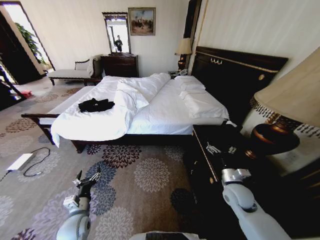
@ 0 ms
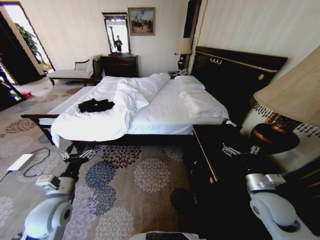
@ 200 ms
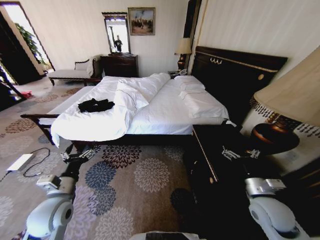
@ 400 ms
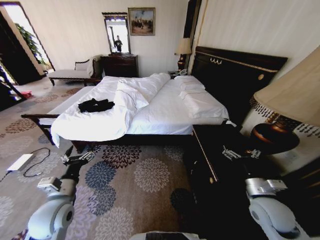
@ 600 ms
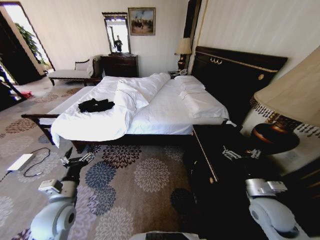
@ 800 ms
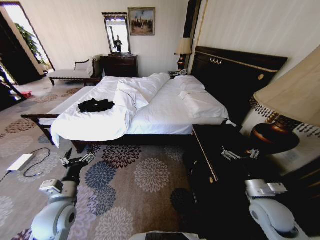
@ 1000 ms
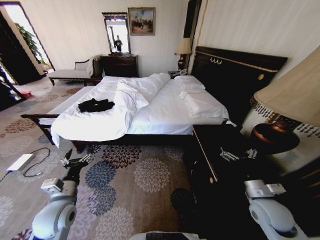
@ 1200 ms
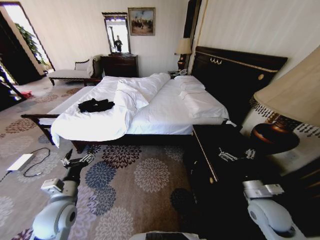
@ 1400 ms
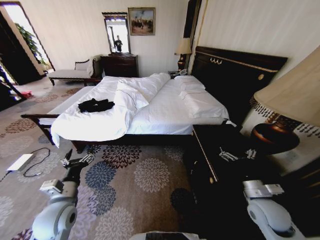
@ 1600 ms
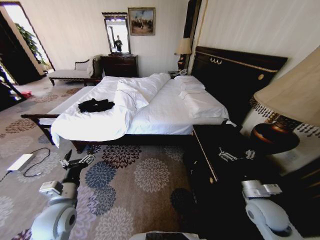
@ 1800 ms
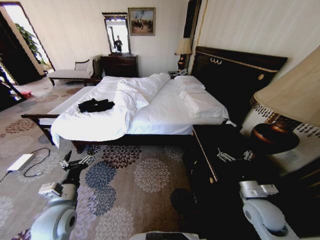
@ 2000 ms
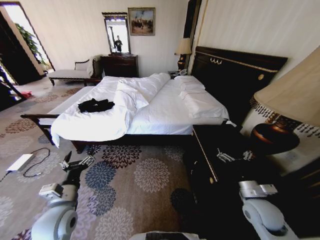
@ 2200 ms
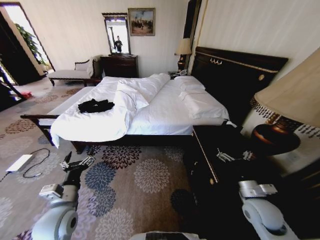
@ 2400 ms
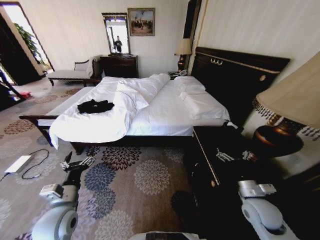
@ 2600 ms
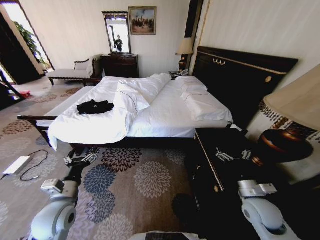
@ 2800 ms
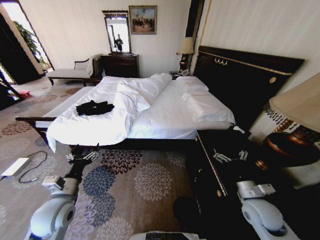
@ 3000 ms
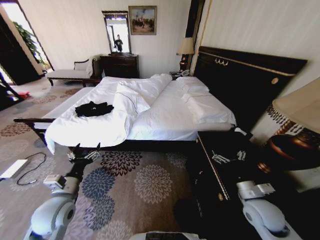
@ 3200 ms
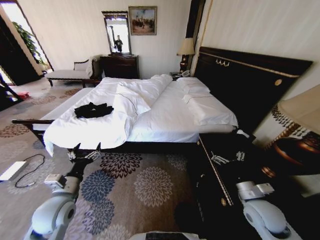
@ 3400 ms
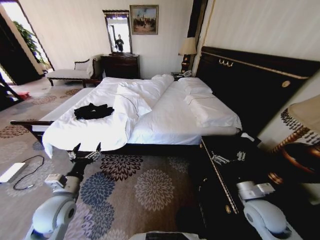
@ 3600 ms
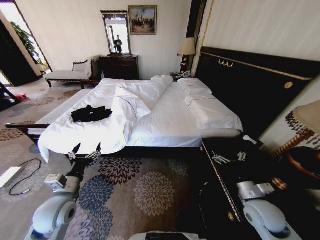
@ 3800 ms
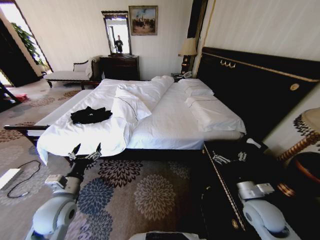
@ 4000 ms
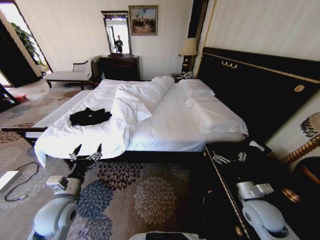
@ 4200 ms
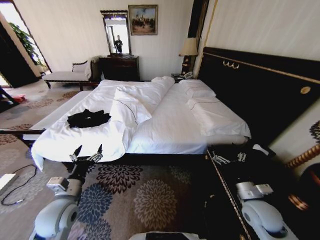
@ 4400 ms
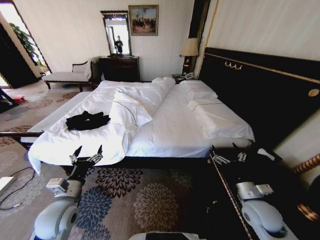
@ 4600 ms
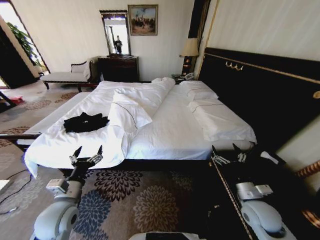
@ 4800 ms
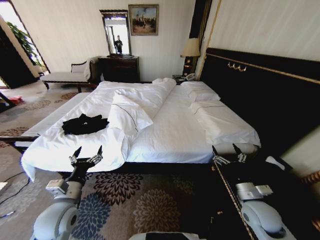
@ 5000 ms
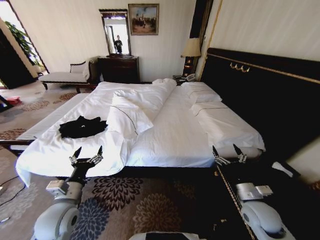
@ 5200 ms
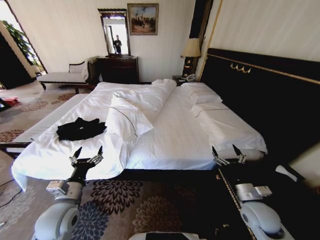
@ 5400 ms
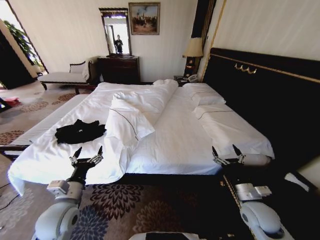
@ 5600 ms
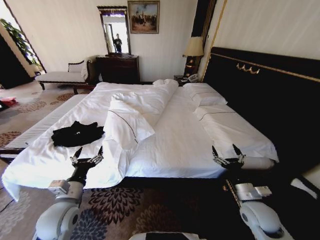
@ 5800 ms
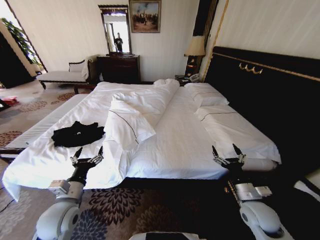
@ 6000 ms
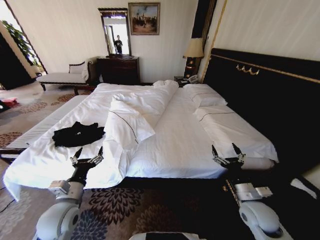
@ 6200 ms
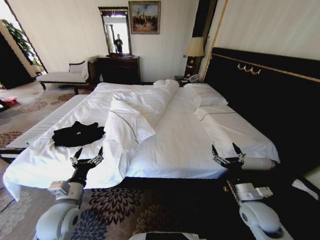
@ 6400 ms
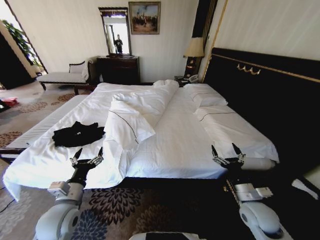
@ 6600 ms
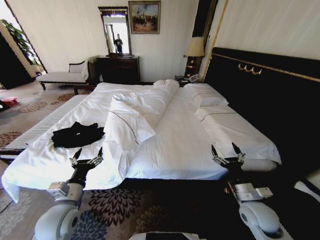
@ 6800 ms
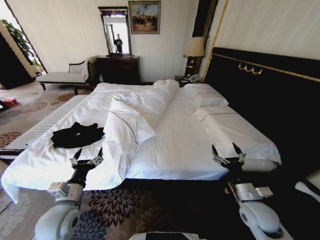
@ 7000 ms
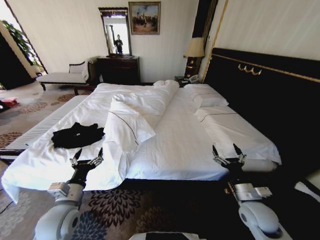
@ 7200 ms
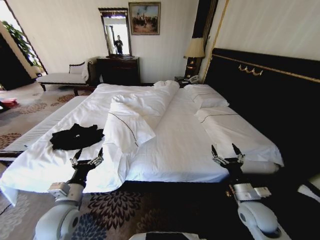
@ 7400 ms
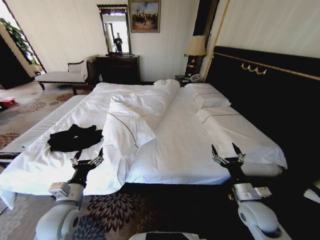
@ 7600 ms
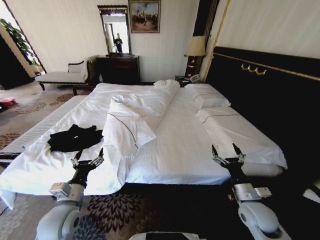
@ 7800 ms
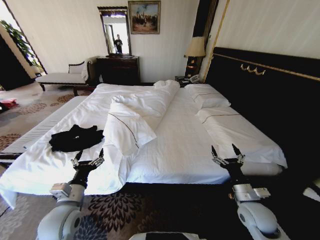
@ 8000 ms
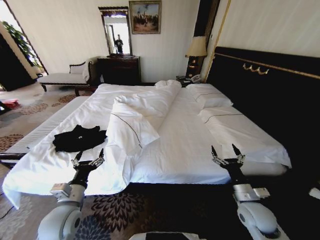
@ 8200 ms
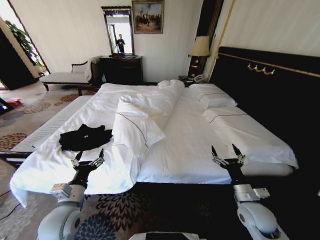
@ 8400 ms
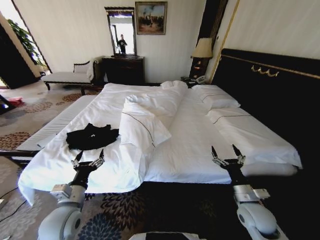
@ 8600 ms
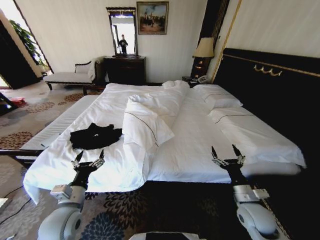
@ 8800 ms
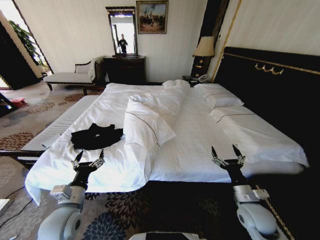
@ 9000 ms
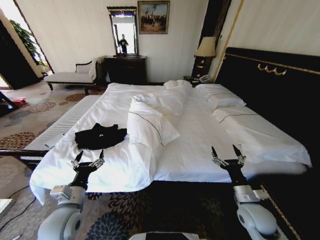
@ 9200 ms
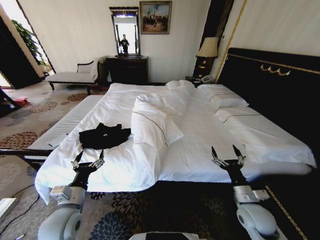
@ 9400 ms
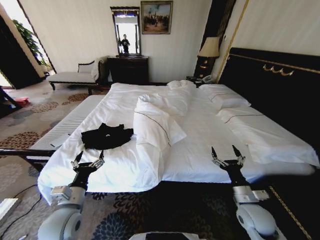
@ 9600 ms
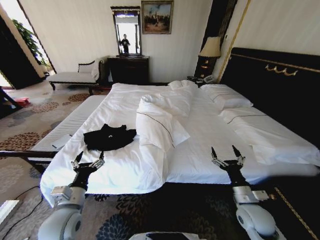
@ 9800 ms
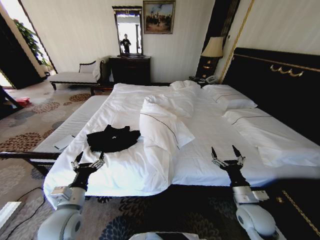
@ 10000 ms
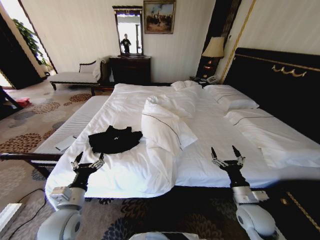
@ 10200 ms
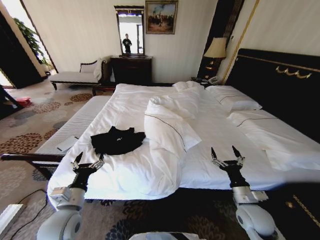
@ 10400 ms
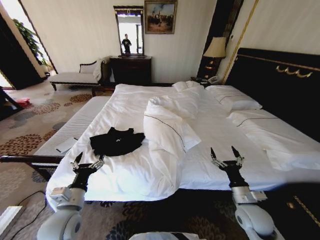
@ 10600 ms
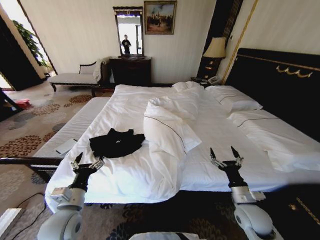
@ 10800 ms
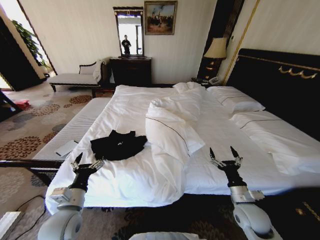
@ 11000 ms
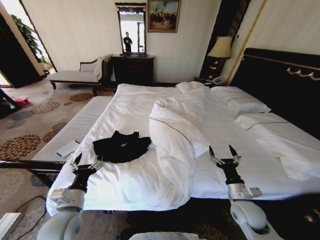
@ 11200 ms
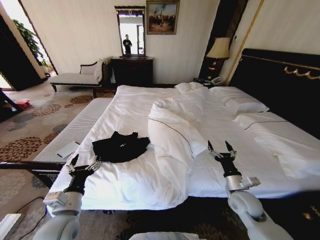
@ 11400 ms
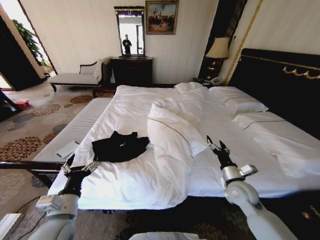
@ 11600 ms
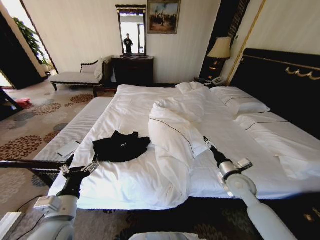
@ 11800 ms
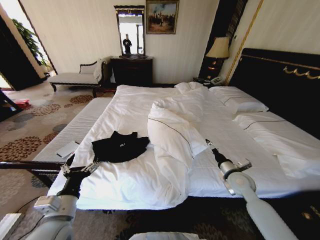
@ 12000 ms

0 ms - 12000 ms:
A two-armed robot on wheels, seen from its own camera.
Task of the whole recording: Fold the clothes on the bed.
6000 ms - 7600 ms: Both grippers stay about where they are.
10400 ms - 12000 ms: The right gripper travels forward by roughly 10 cm.

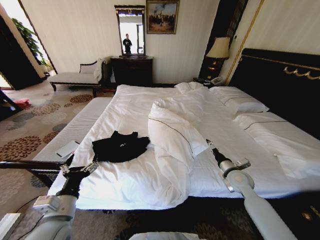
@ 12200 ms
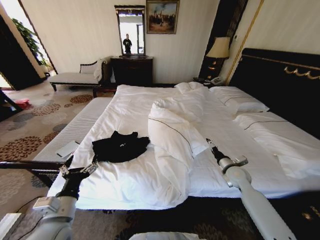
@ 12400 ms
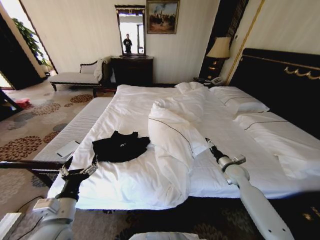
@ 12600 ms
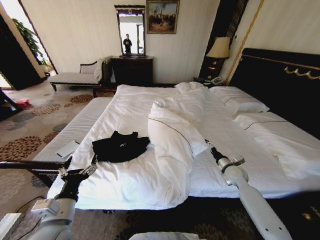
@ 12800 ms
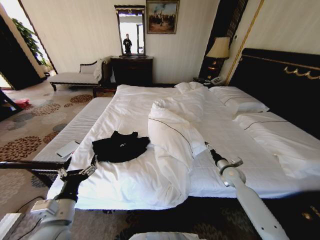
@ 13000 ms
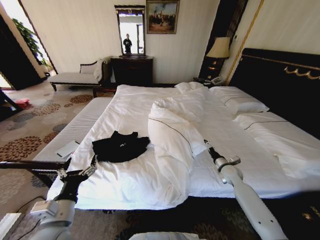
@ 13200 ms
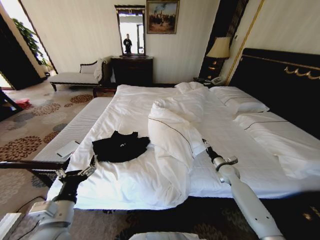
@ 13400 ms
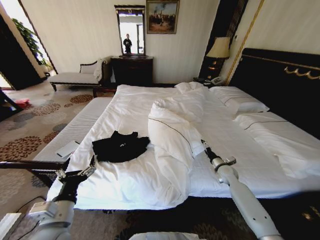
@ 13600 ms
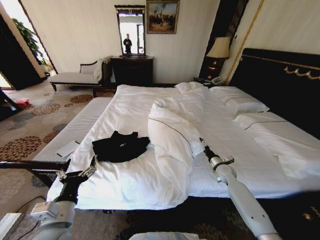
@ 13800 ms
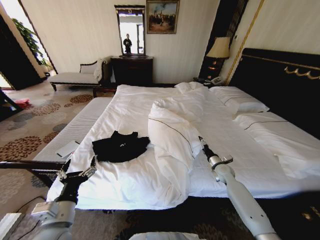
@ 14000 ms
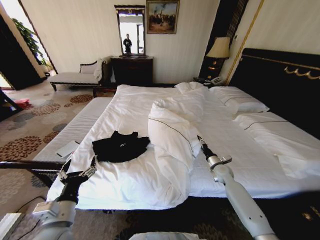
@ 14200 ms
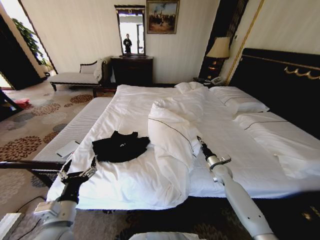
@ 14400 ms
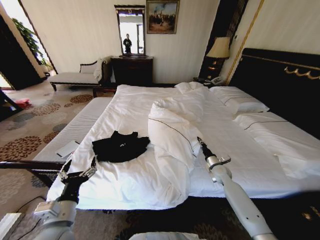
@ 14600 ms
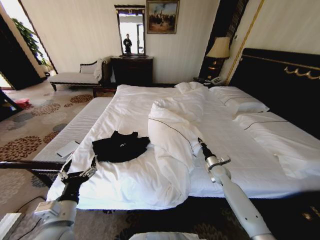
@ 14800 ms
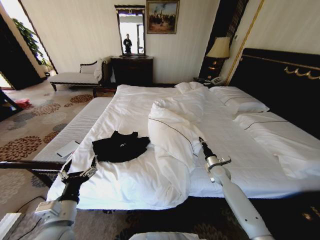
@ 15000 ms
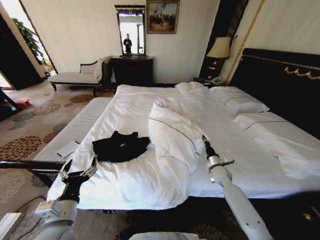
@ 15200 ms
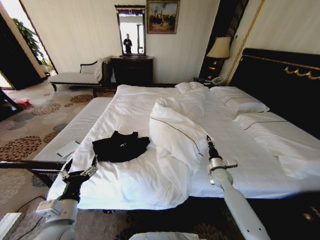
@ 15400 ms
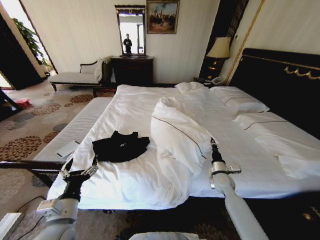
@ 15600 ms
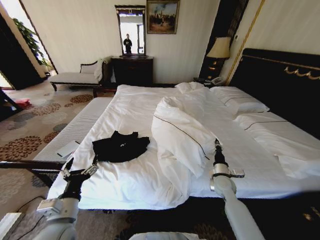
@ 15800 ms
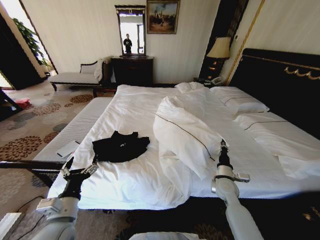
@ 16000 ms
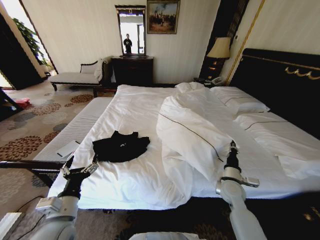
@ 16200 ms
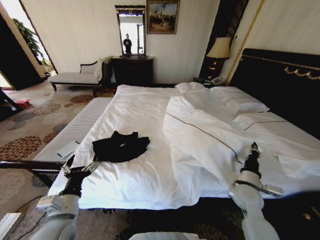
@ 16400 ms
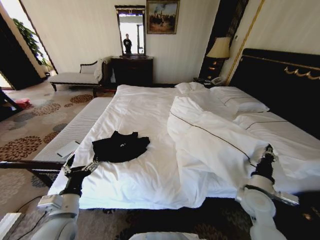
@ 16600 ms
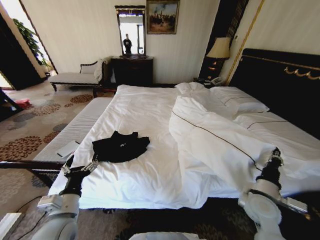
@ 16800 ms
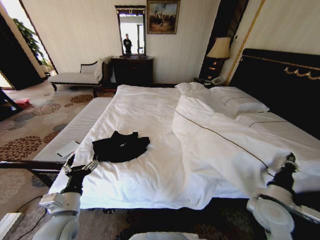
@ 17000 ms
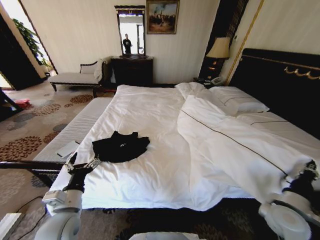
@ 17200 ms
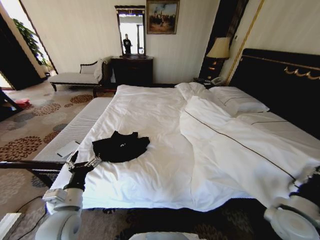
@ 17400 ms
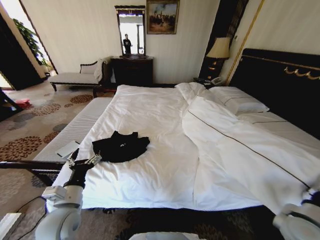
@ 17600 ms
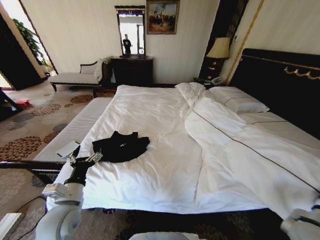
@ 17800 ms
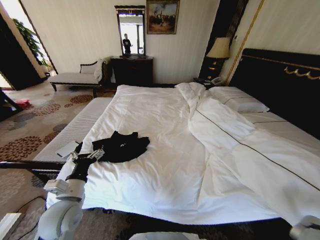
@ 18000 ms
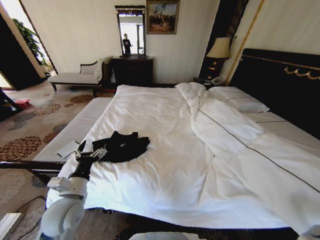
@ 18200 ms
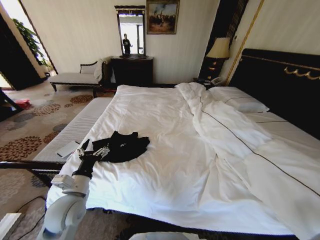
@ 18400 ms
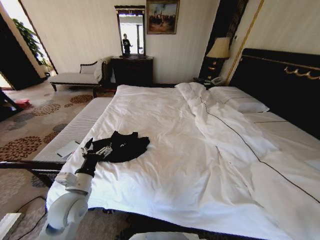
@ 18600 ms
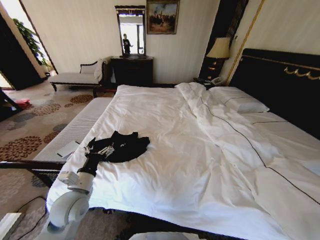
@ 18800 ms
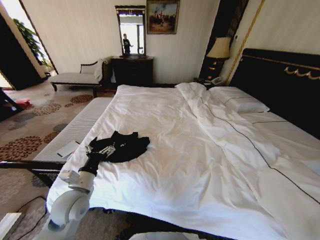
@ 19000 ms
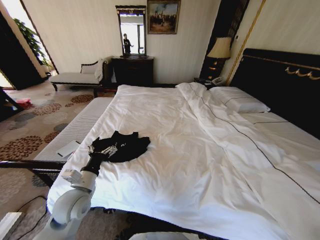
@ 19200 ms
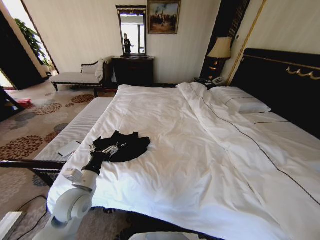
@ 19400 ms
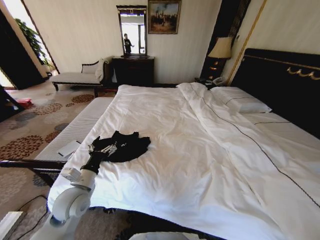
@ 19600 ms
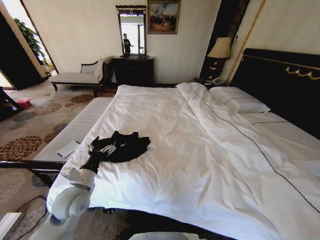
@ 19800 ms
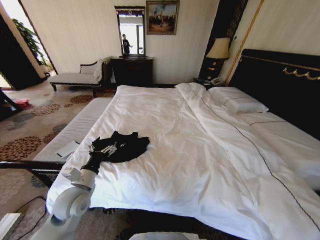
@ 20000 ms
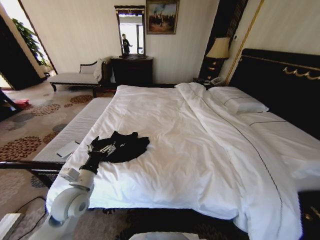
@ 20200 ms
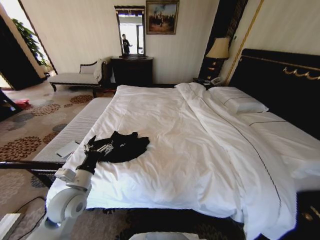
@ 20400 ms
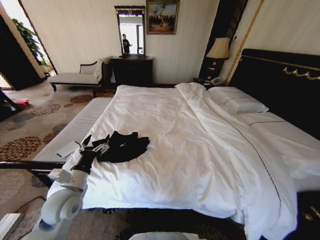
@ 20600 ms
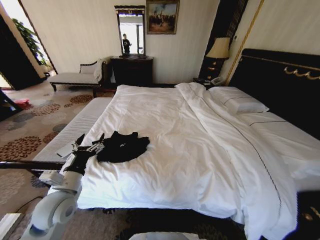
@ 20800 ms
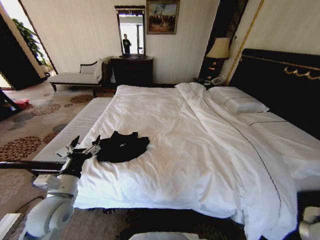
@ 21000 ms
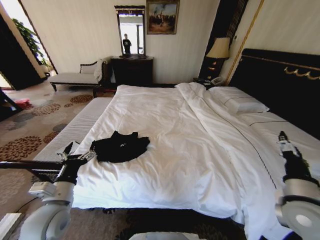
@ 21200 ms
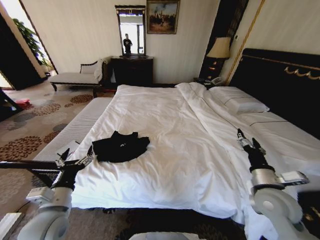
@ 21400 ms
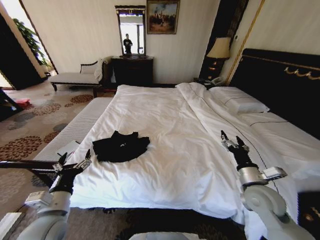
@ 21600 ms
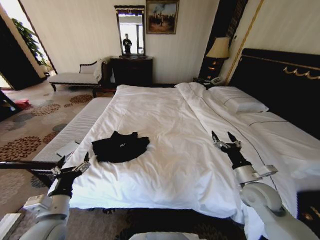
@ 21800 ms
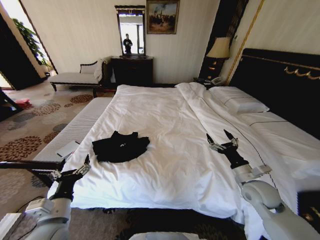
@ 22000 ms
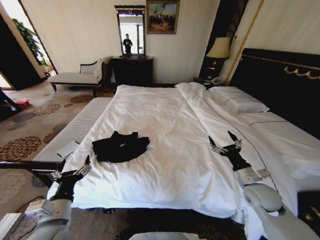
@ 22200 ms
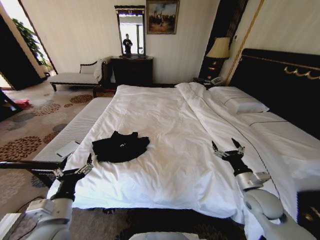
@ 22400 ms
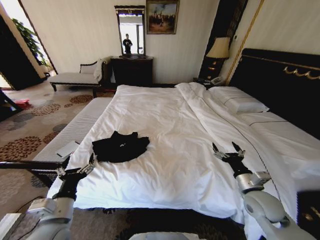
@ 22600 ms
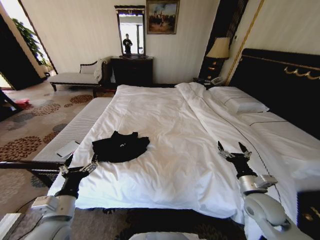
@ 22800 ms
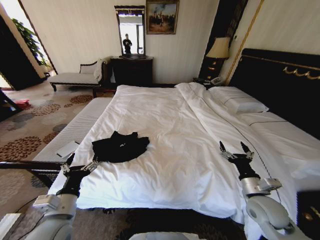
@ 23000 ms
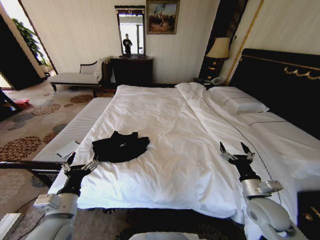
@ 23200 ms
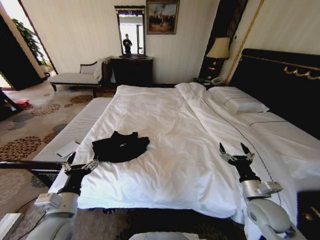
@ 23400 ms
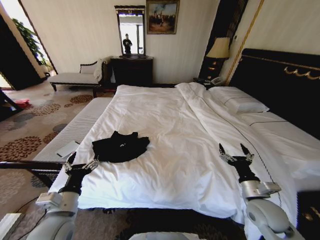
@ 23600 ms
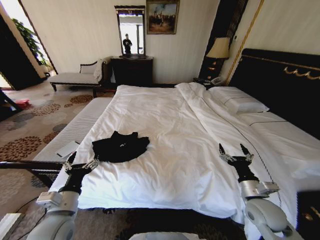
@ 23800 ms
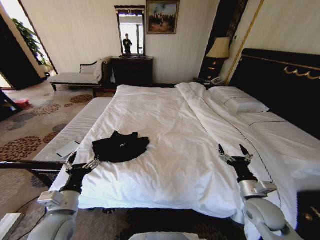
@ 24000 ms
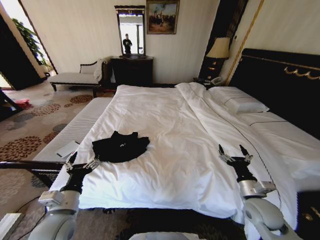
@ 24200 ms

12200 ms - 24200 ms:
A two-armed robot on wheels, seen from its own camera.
Task of the whole recording: Fold the clothes on the bed.
12200 ms - 13800 ms: The right gripper is displaced downward and forward by some 10 cm.
13800 ms - 15200 ms: The right gripper closes its fingers.
15200 ms - 16600 ms: The right gripper heads backward and upward, covering about 15 cm.
16600 ms - 18200 ms: The right gripper travels backward and to the right by roughly 20 cm. The left gripper moves approximately 5 cm.
18200 ms - 19800 ms: The right gripper shifts approximately 10 cm backward and downward.
19800 ms - 21200 ms: The right gripper moves forward, upward and to the left, about 25 cm, and opens up, while the left gripper is displaced backward by roughly 5 cm.
21200 ms - 22600 ms: The right gripper goes approximately 10 cm downward and forward, while the left gripper ends up roughly 5 cm from where it was.
22600 ms - 24200 ms: There are only small adjustments of the grippers.
